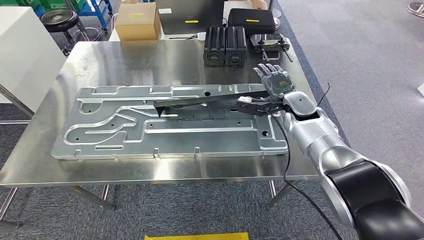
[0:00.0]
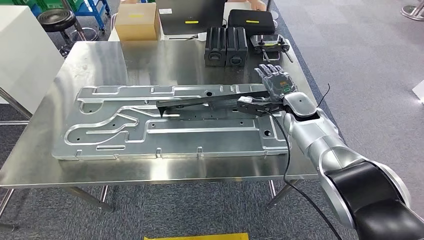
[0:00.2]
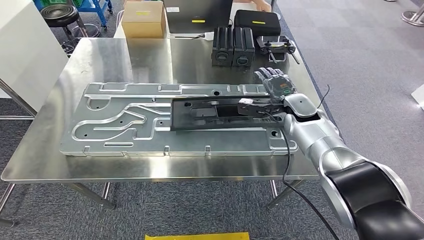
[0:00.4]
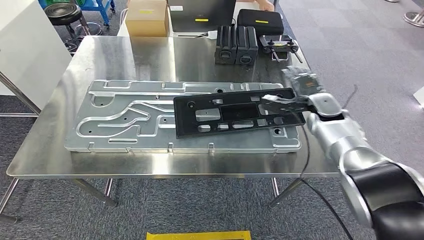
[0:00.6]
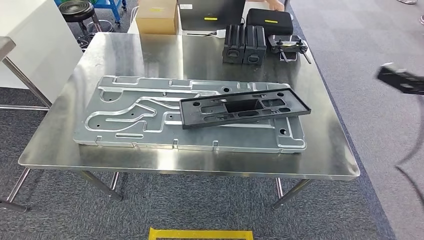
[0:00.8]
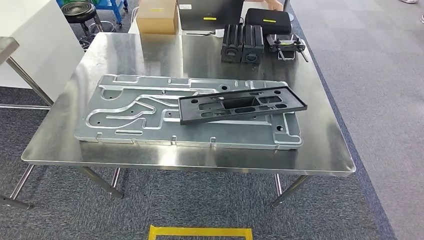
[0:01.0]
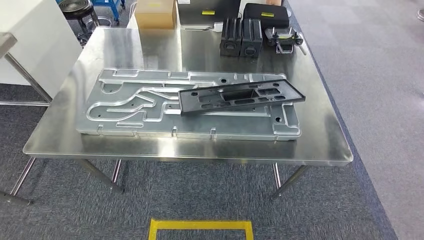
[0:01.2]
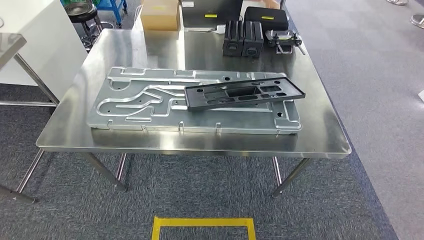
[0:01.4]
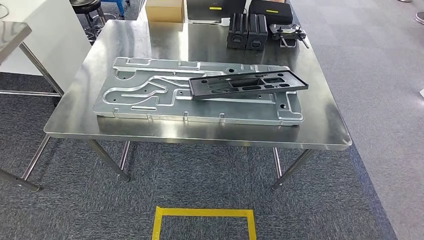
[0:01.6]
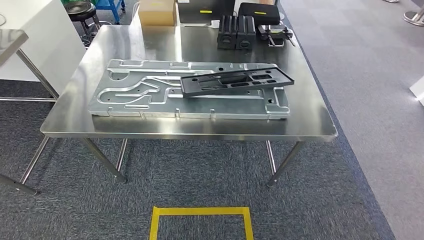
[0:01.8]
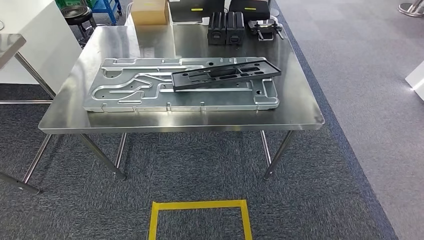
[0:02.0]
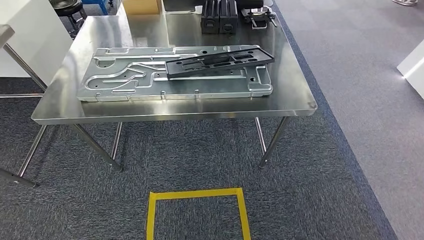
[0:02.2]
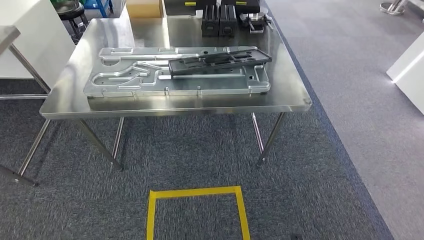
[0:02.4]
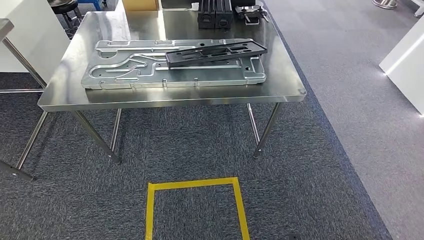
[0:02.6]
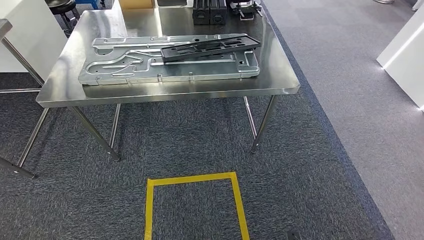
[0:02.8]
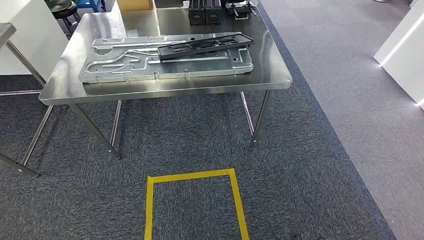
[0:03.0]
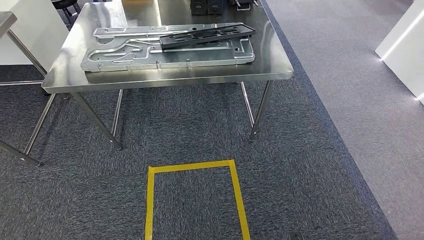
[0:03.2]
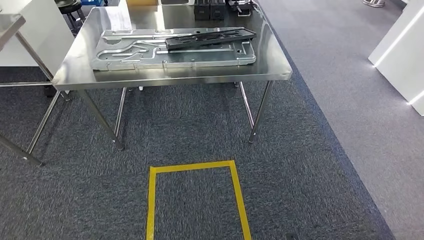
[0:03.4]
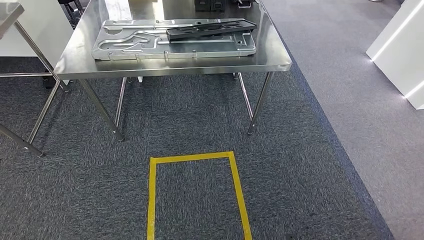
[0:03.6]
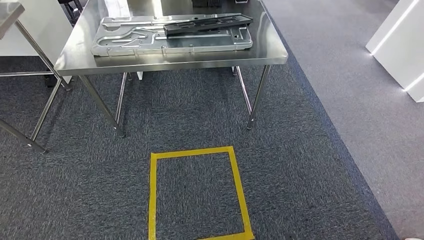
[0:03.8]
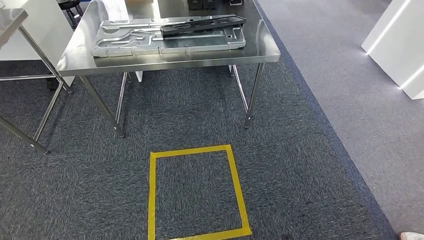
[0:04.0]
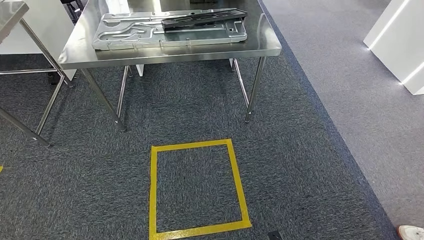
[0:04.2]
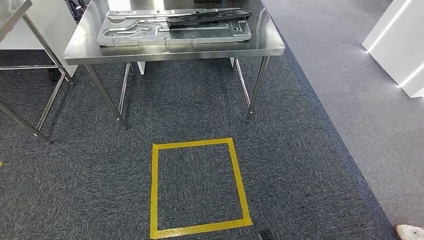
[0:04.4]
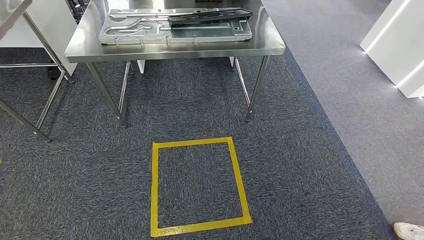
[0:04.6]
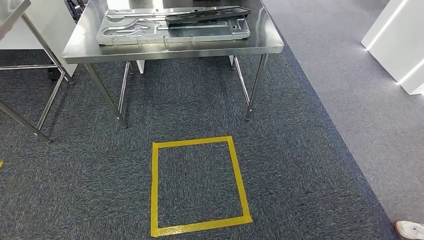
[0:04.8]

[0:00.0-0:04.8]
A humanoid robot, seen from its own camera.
Step, 0:00.0 to 0:02.0: Insert the large material into the corresponding slot on the workbench.
Step, 0:02.2 to 0:04.8: Move to the initial position of the shelf.
